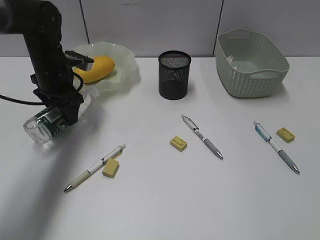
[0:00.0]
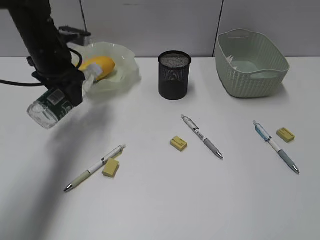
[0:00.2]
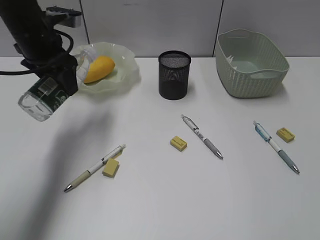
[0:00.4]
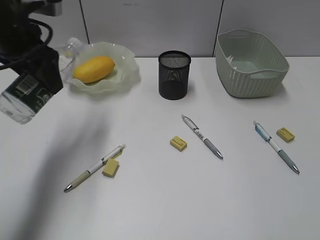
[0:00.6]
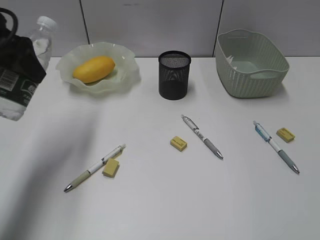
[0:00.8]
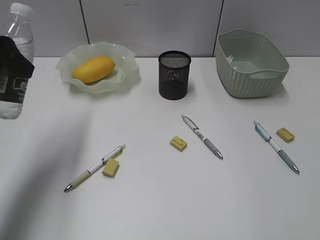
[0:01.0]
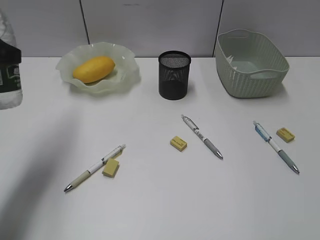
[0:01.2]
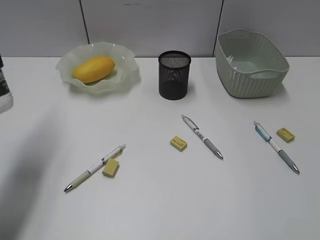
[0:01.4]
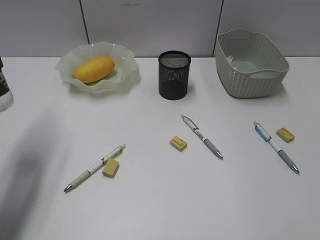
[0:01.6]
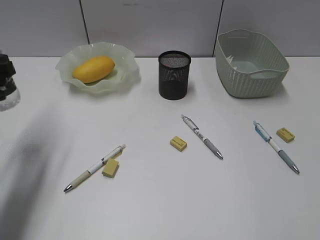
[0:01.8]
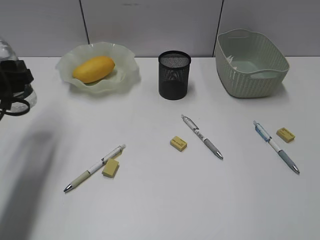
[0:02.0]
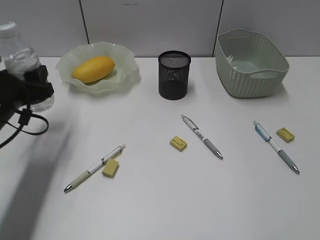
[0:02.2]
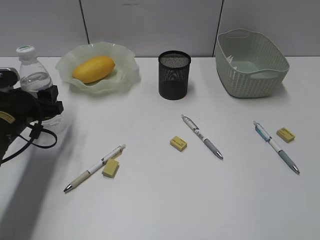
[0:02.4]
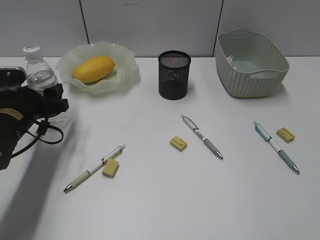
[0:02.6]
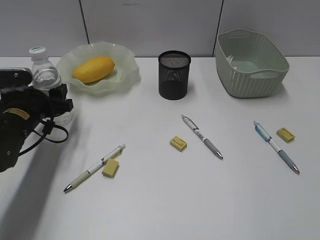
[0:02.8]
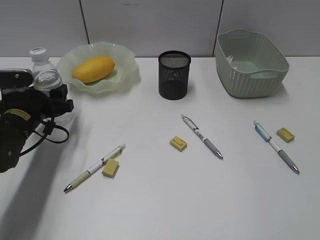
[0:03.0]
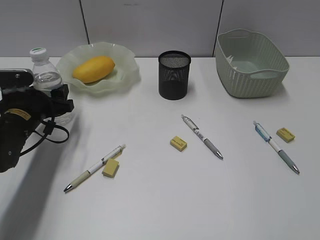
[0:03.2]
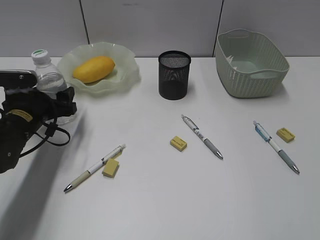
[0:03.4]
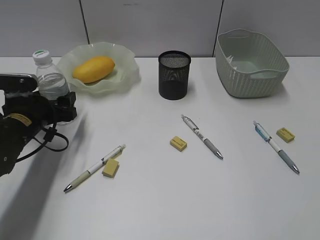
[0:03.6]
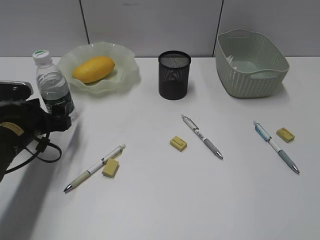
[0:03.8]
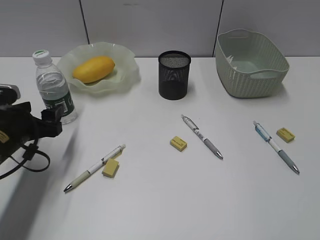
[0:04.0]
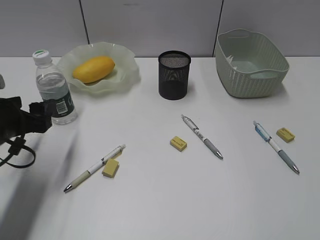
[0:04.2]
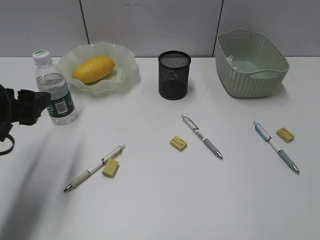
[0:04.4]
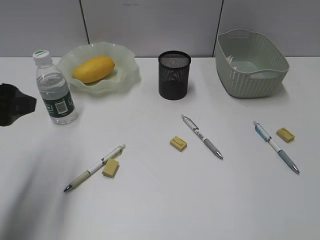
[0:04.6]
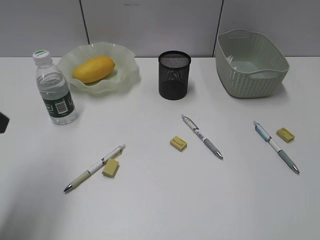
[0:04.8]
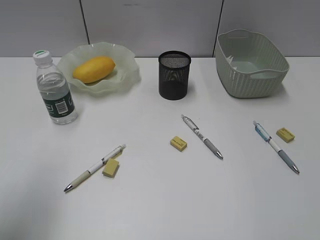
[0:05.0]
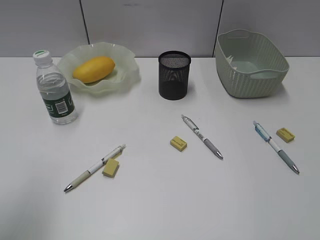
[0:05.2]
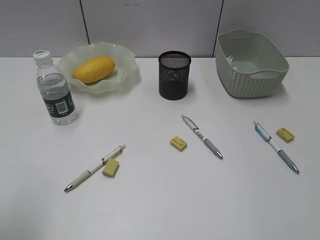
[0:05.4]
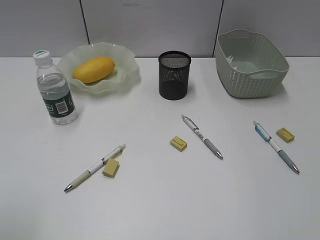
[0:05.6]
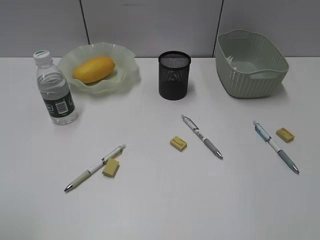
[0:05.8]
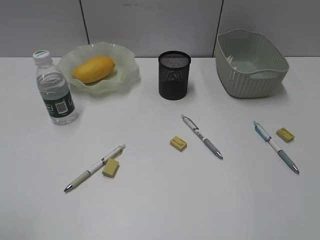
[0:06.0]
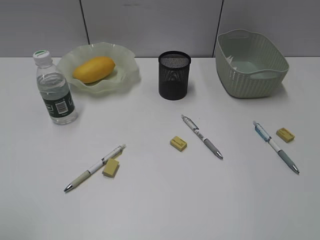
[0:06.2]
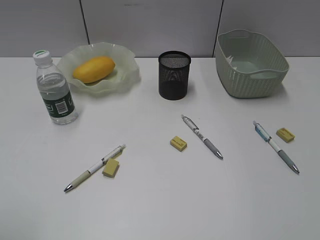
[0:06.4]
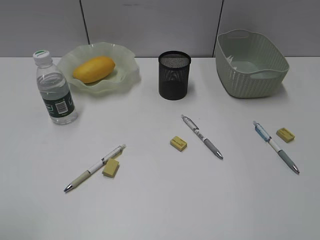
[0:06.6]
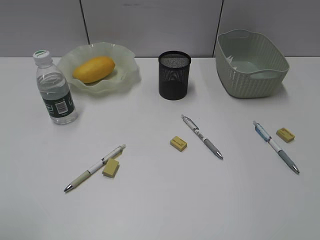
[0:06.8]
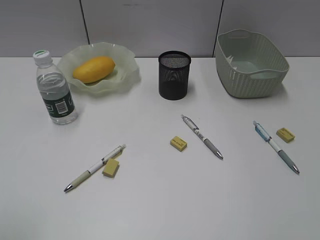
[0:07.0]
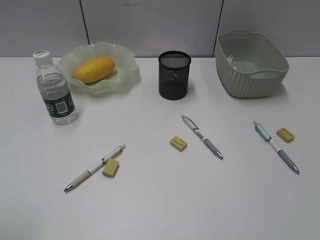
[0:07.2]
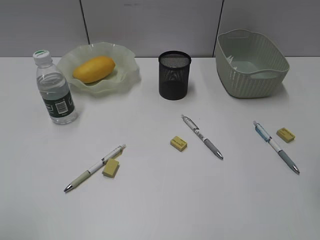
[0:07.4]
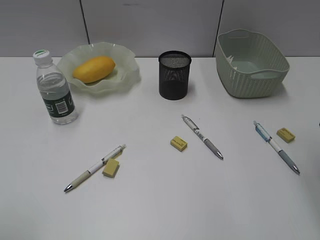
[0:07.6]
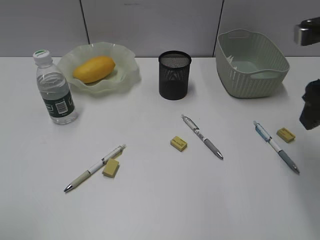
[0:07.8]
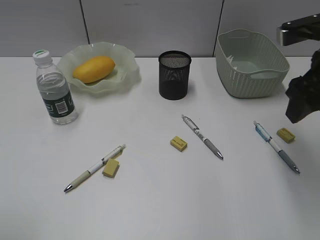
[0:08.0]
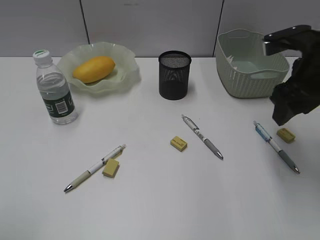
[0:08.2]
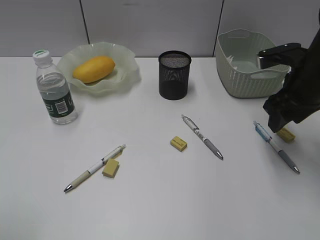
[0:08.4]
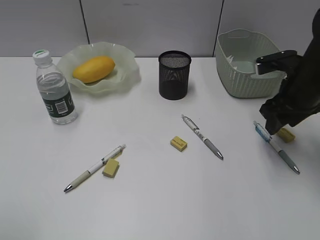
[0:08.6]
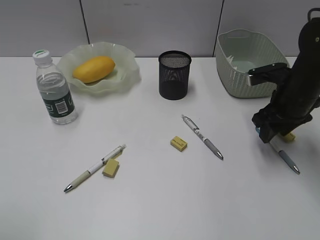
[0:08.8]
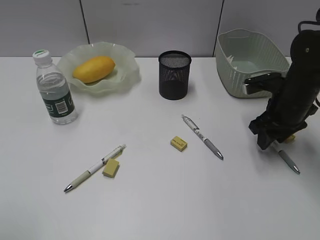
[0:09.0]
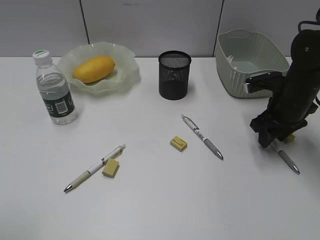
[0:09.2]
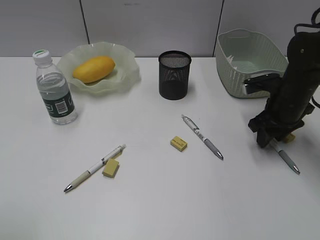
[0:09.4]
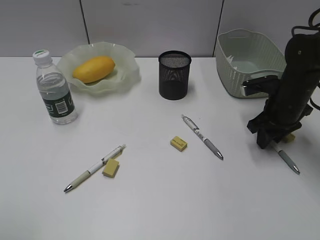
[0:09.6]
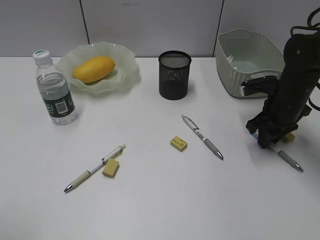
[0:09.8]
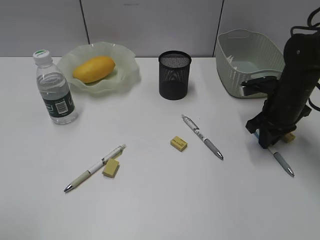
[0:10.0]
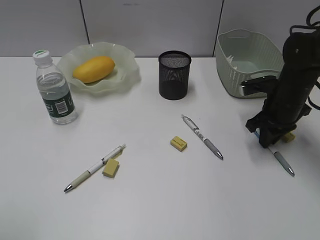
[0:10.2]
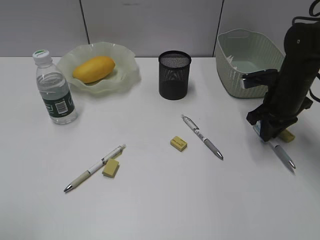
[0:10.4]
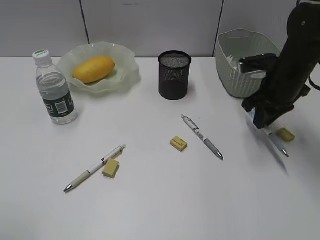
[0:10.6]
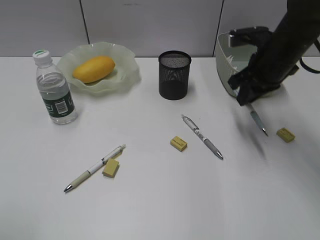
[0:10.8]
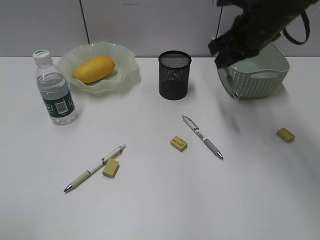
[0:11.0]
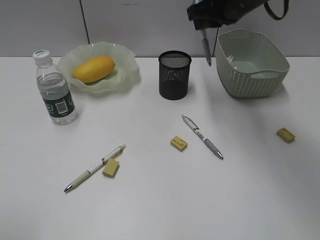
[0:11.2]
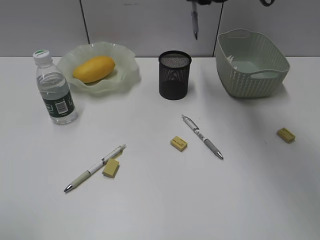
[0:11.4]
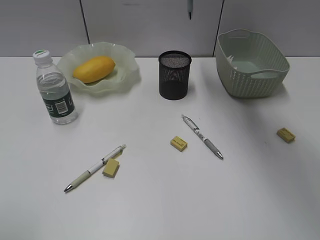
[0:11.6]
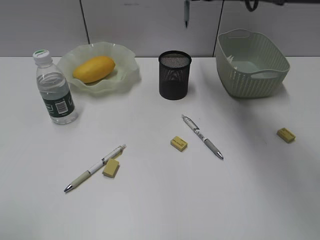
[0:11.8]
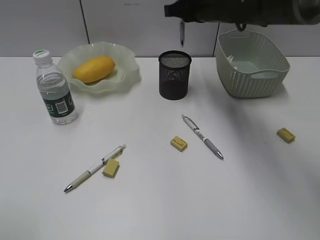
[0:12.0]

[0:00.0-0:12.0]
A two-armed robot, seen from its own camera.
Step, 0:00.0 to 0:03.8: Stand the bottle with left gripper.
Step, 0:04.0 to 0:10.0: Grasp the blue pen with right gripper.
0:00.0 to 0:01.6: The left gripper heads backward, upward and to the left, covering approximately 20 cm.
0:01.6 to 0:03.0: The left gripper travels downward and forward by some 20 cm.
0:03.0 to 0:04.4: The left gripper travels backward and upward by approximately 15 cm.
0:04.4 to 0:06.0: The left gripper heads backward and upward, covering about 20 cm.
0:06.0 to 0:07.6: The right gripper is displaced forward by approximately 20 cm.
0:07.6 to 0:09.0: The right gripper goes approximately 25 cm downward and forward.
0:09.0 to 0:10.4: The right gripper closes up.
0:10.4 to 0:12.0: The right gripper moves to the left, upward and forward, approximately 20 cm.

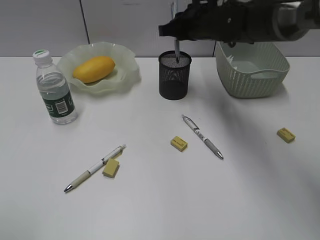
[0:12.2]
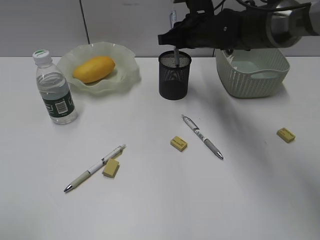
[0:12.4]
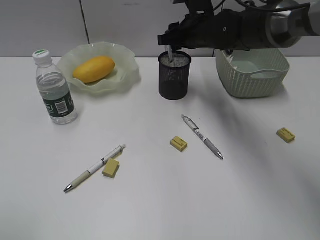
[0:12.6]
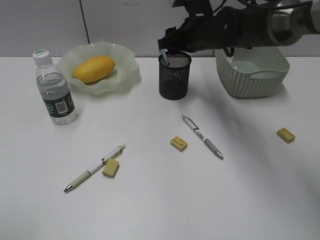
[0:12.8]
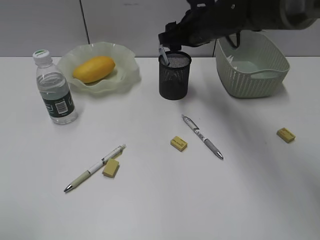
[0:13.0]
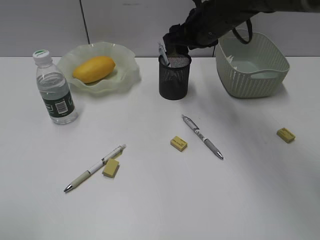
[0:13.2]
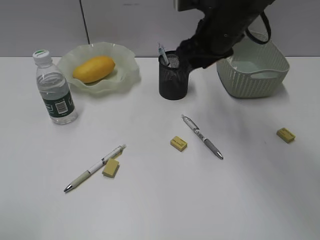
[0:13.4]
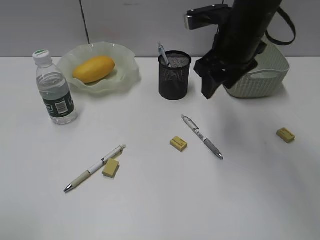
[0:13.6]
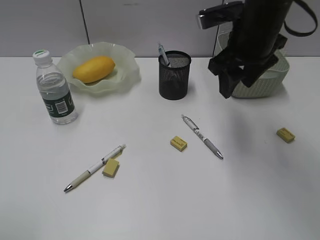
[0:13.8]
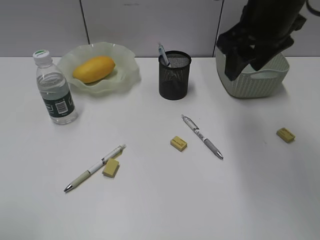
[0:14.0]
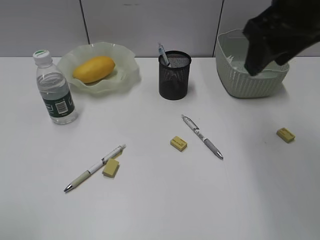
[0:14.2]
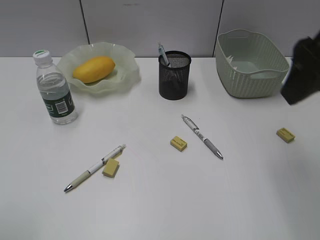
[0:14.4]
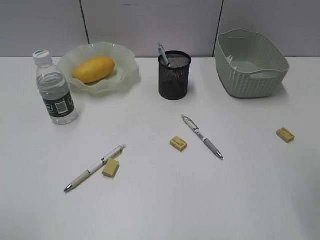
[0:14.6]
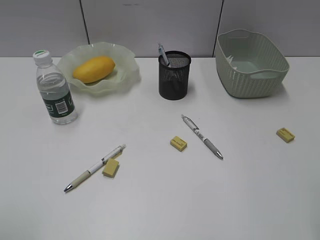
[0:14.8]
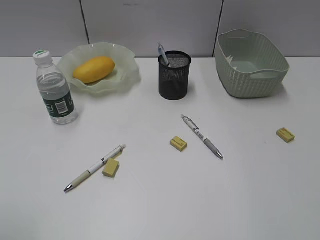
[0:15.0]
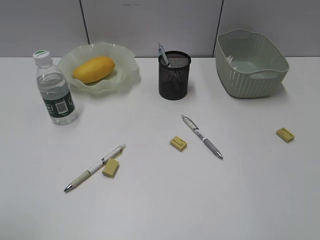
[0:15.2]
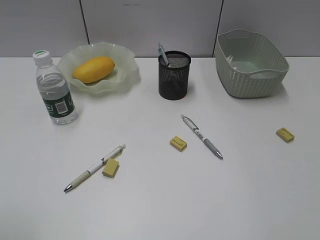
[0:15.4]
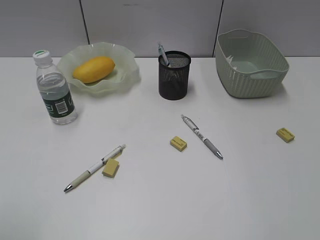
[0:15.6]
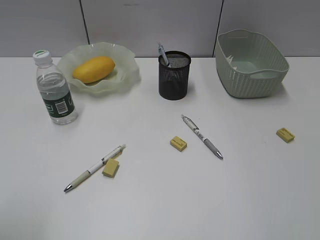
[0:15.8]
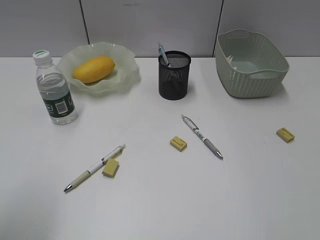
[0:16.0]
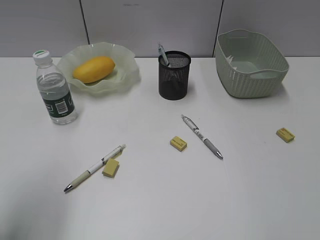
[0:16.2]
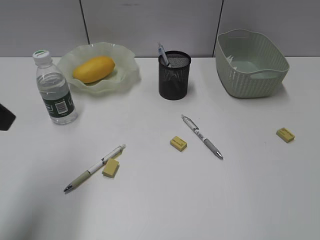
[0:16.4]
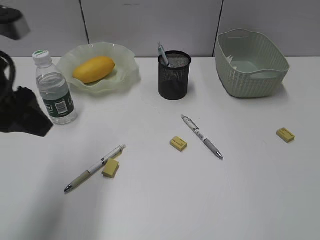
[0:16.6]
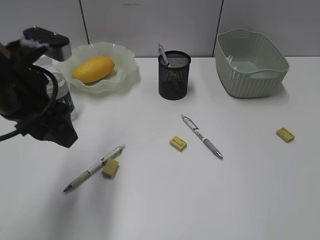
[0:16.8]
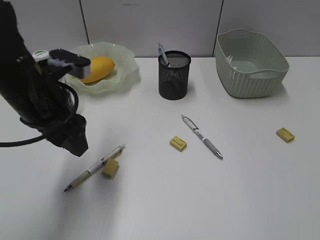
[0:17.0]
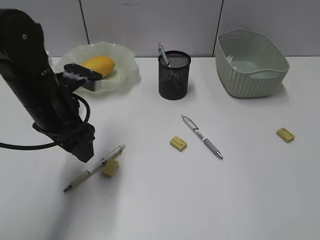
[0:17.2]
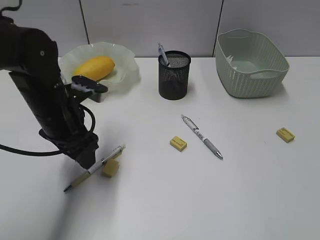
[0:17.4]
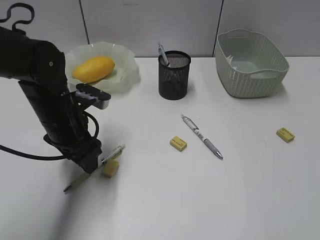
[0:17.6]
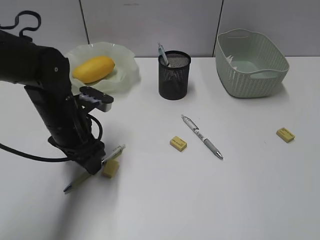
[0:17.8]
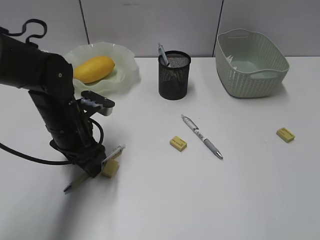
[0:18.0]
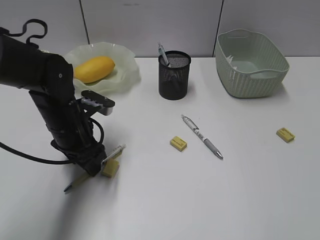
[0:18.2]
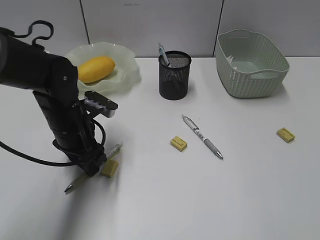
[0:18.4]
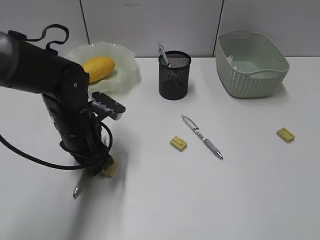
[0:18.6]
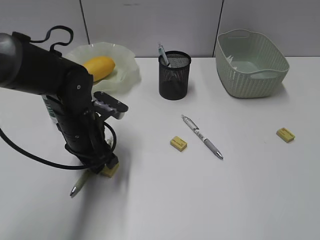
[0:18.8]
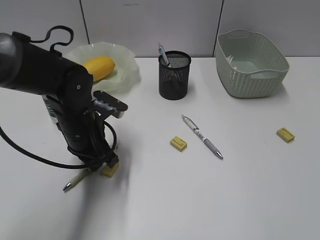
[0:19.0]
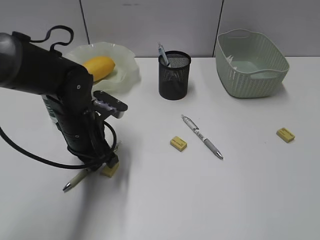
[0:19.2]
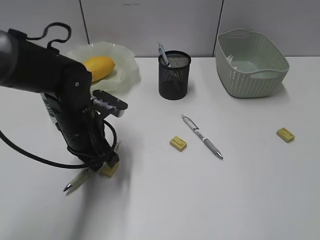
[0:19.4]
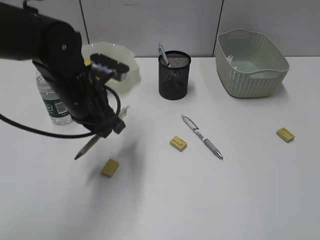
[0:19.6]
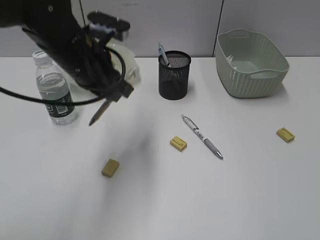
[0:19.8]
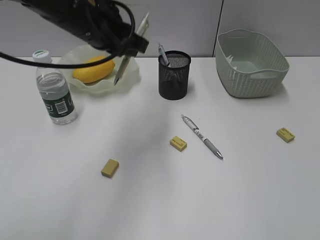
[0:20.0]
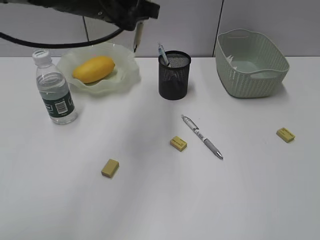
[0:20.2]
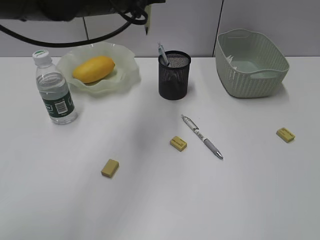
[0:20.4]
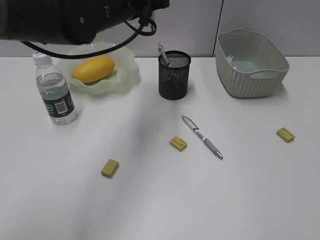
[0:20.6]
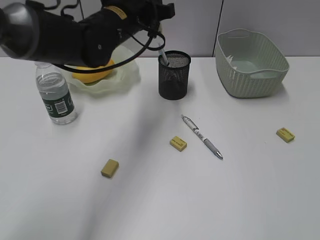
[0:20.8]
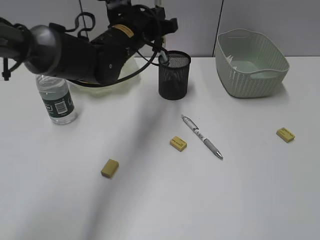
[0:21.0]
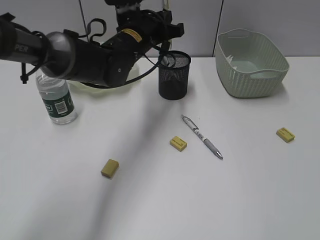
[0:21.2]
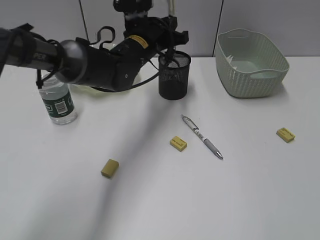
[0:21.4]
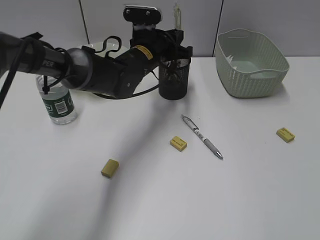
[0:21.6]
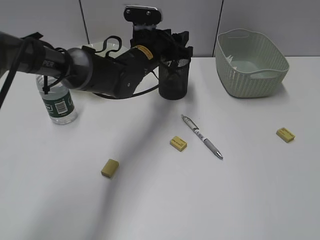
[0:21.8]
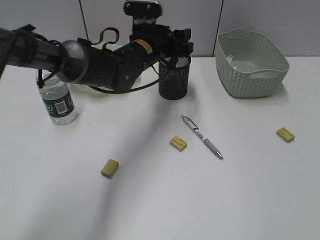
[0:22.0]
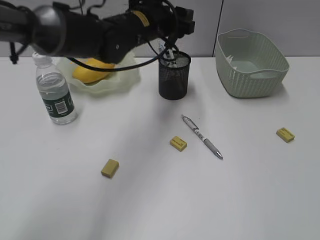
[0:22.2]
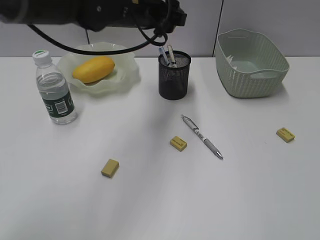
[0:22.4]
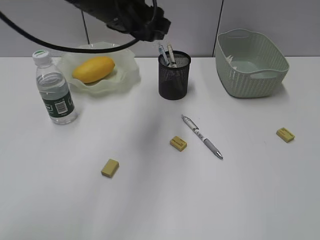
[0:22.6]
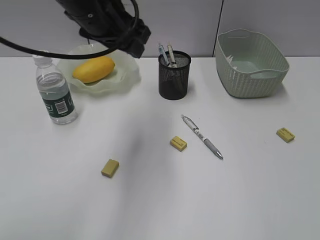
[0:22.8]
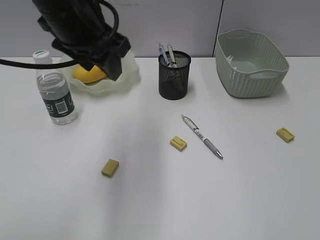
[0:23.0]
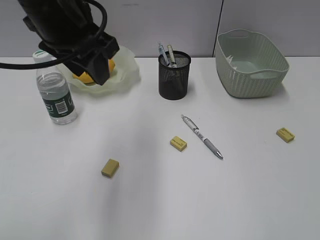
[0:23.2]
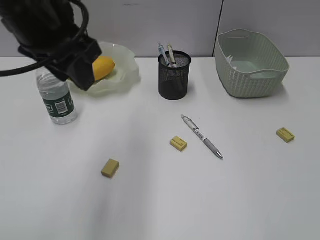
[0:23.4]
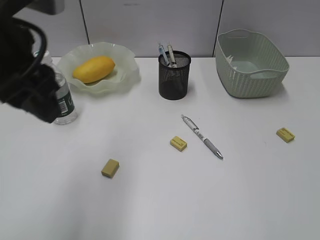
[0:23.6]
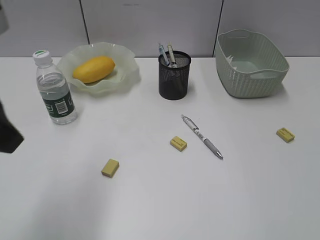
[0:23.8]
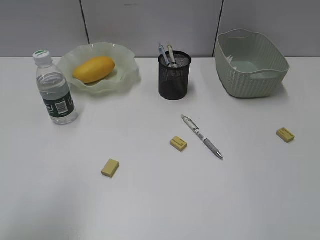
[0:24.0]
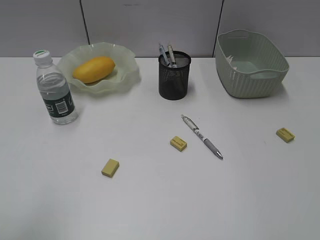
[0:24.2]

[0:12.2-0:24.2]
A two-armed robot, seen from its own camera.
Step, 0:13.2 to 0:19.0: Grasp the yellow pen with left gripper.
Step, 0:19.2 to 0:22.0: Place the yellow pen in pen holder with left gripper.
0:12.2 to 0:13.8: The right gripper heads backward, covering roughly 10 cm, and opens up.
0:13.8 to 0:15.2: The right gripper goes roughly 35 cm backward and to the right.
0:15.2 to 0:16.6: The left gripper is displaced forward and to the right by about 20 cm.
0:16.6 to 0:18.2: The left gripper goes some 20 cm downward and forward.
0:18.2 to 0:19.8: The left gripper heads upward, covering some 10 cm, and closes up.
0:19.8 to 0:21.2: The left gripper is displaced forward and to the right by about 10 cm, and goes upward and returns, approximately 5 cm each way.
0:21.2 to 0:22.6: The left gripper shifts roughly 10 cm upward and backward, and opens.
0:22.6 to 0:24.2: The left gripper shifts roughly 35 cm backward and to the left.
